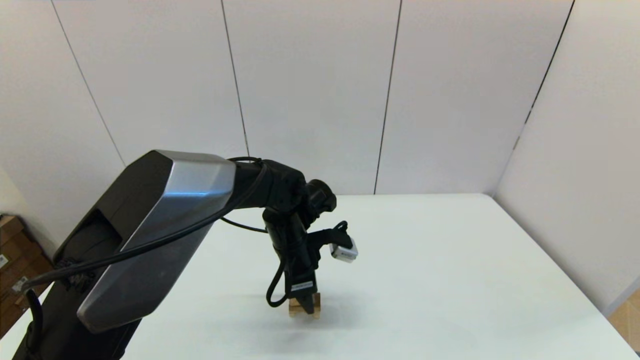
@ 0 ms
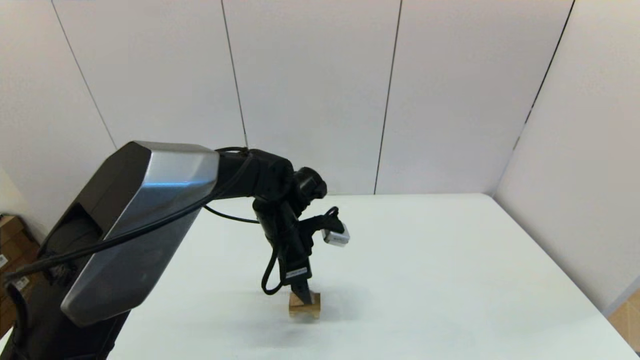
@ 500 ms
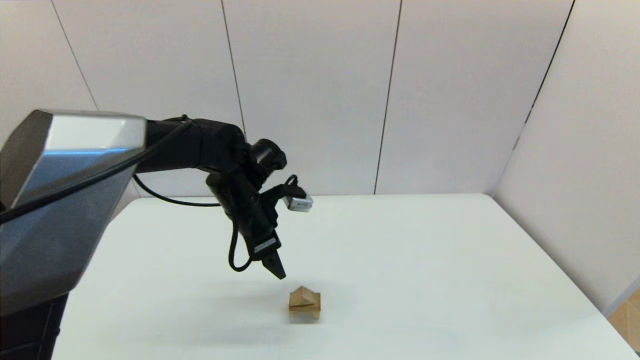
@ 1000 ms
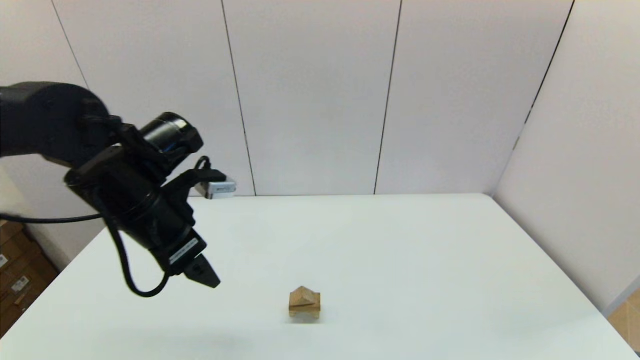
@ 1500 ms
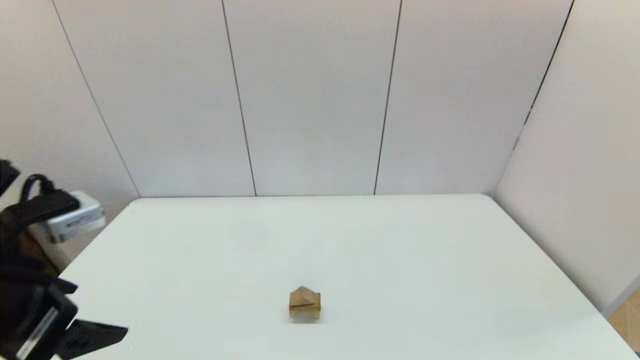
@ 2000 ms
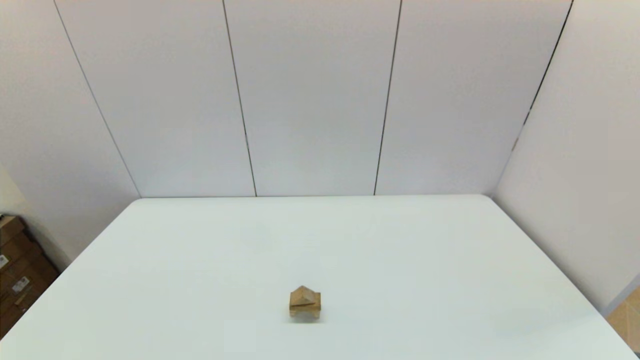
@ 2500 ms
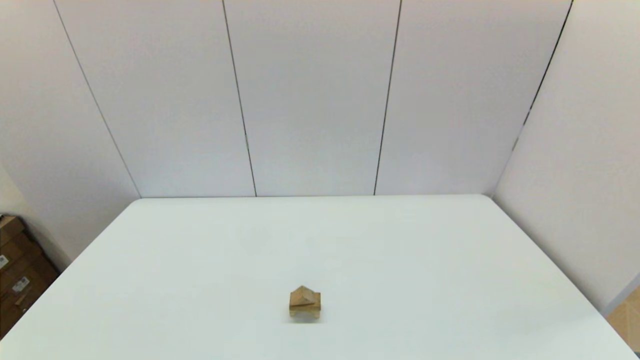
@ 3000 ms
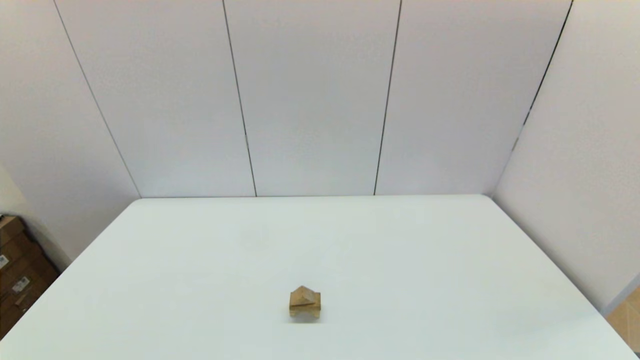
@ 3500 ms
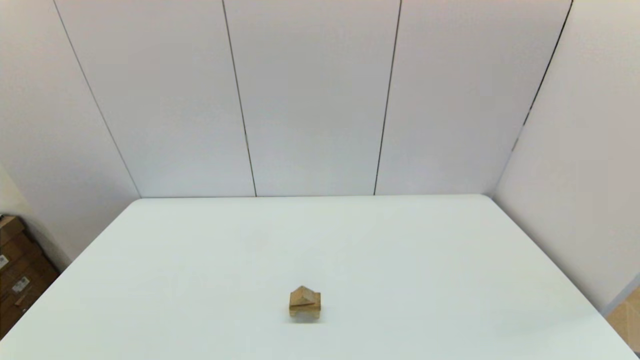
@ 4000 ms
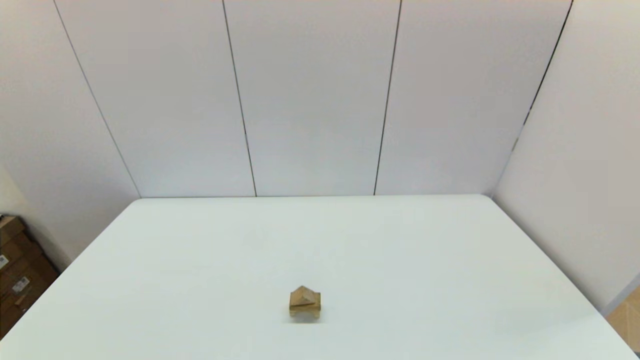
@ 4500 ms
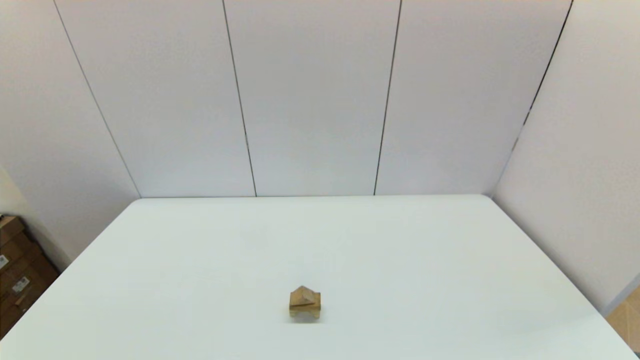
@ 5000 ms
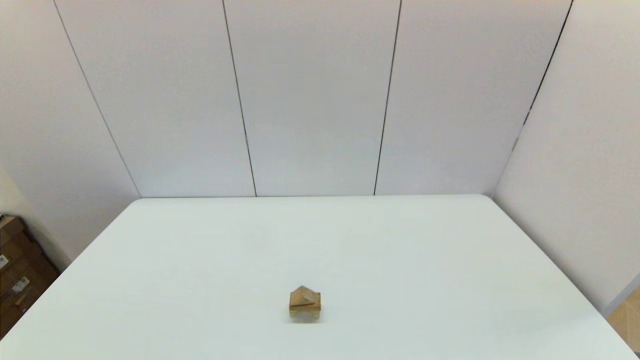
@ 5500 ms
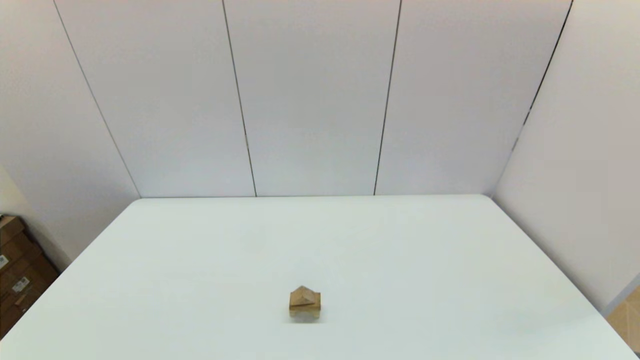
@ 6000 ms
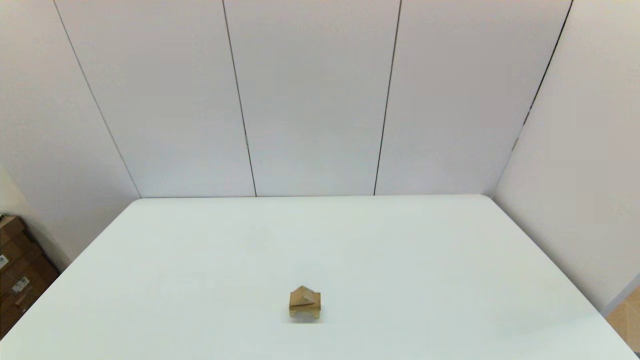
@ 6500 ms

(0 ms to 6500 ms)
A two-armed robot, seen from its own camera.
Task of the whole recording: place the arched building blocks in the center of the table, set up the rectangular building blocks, and then set up the triangular building blocks.
0 ms - 2000 ms: The left gripper goes some 35 cm to the left, backward and upward, and opens up.
2000 ms - 4500 ms: The left gripper moves backward and downward, some 20 cm.
